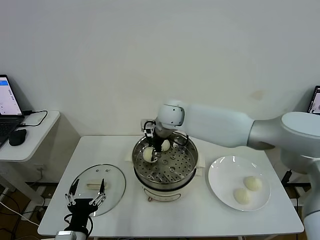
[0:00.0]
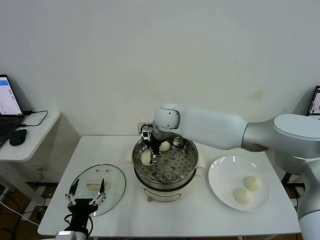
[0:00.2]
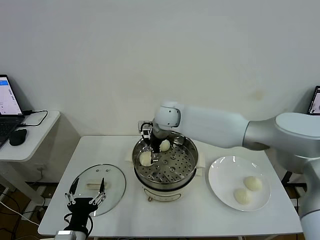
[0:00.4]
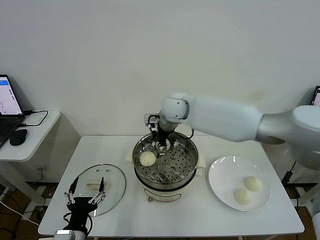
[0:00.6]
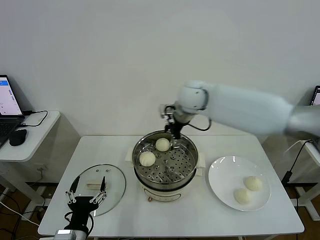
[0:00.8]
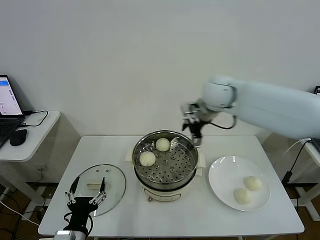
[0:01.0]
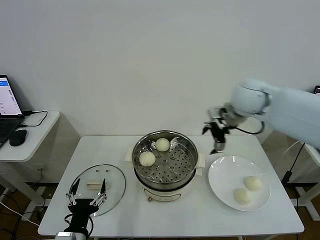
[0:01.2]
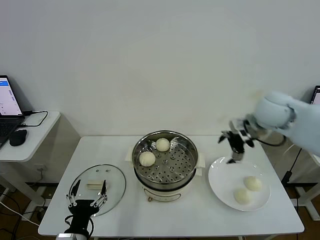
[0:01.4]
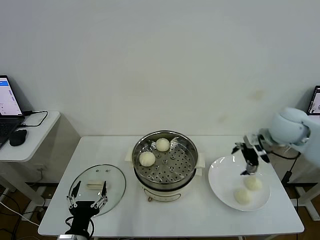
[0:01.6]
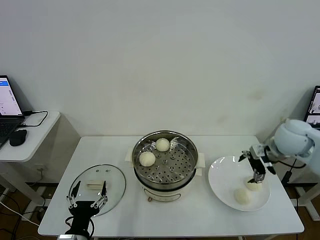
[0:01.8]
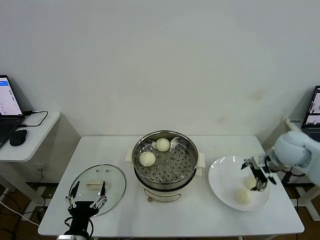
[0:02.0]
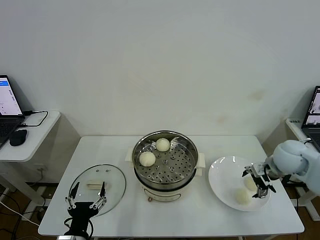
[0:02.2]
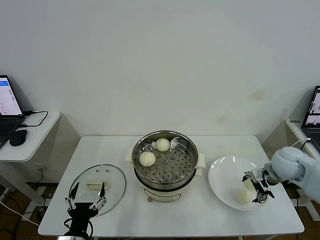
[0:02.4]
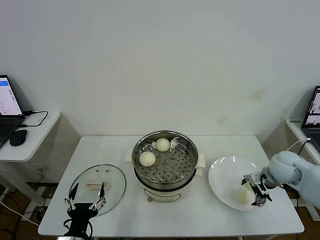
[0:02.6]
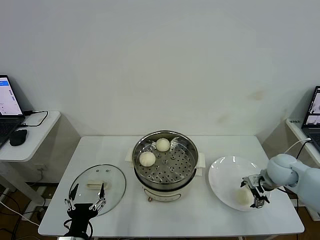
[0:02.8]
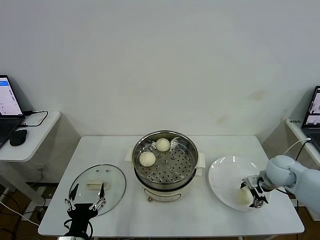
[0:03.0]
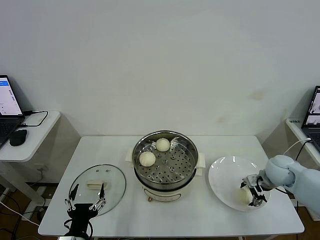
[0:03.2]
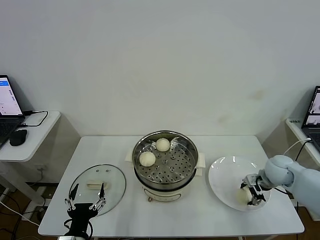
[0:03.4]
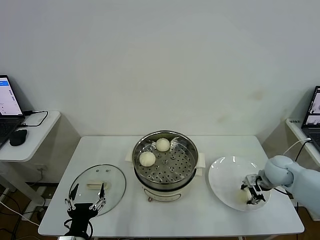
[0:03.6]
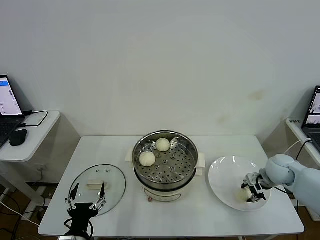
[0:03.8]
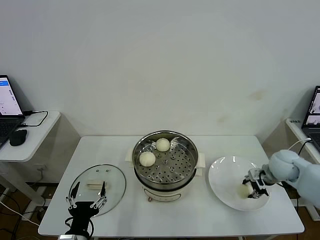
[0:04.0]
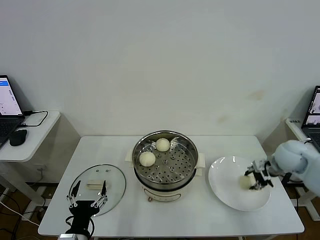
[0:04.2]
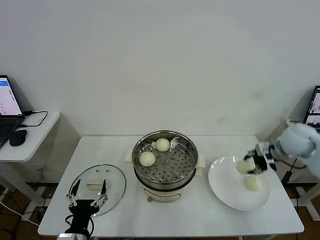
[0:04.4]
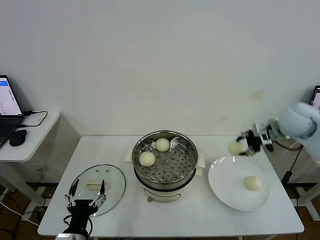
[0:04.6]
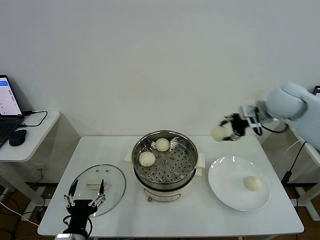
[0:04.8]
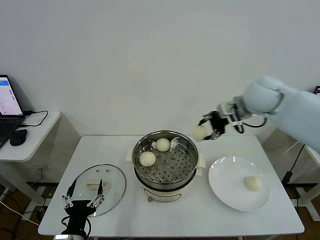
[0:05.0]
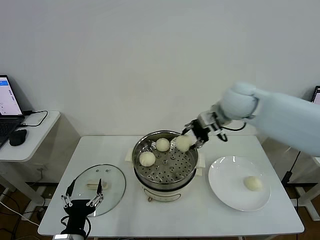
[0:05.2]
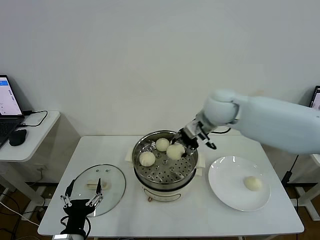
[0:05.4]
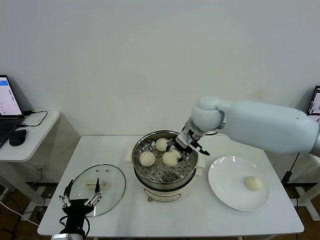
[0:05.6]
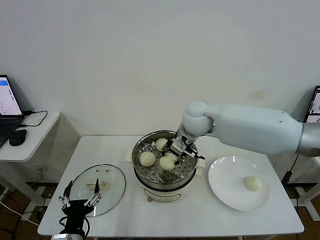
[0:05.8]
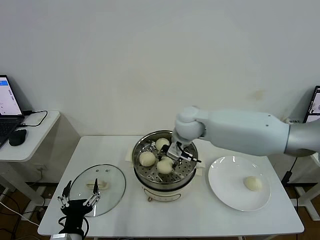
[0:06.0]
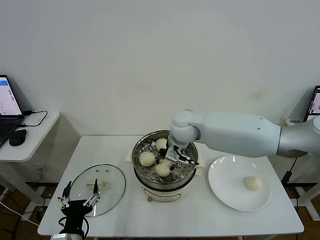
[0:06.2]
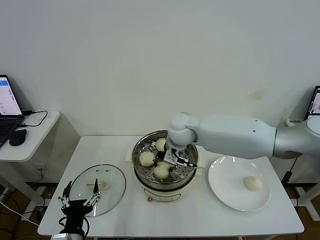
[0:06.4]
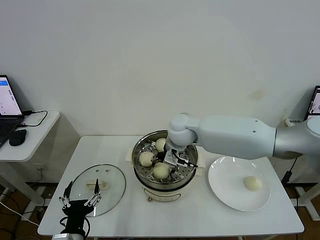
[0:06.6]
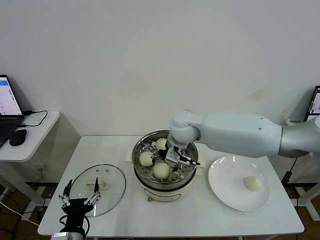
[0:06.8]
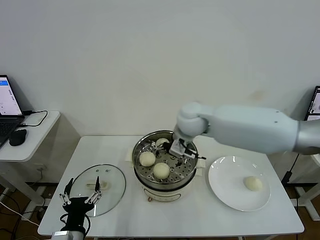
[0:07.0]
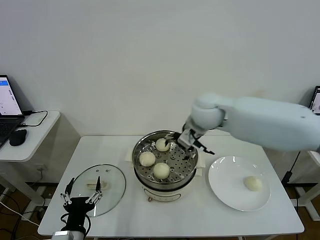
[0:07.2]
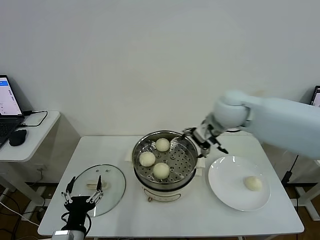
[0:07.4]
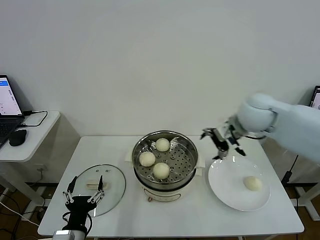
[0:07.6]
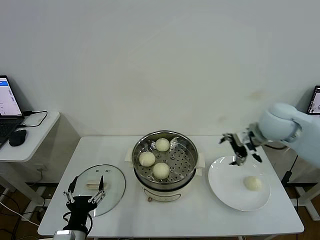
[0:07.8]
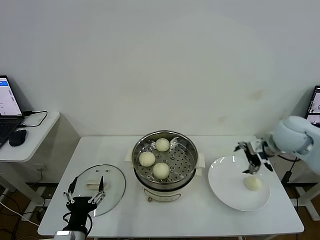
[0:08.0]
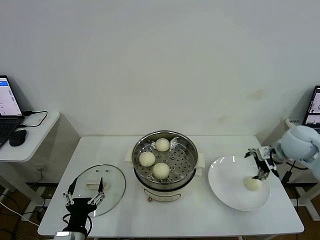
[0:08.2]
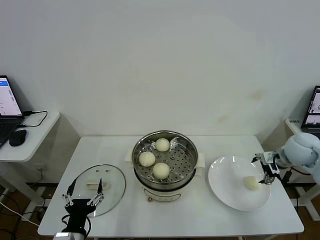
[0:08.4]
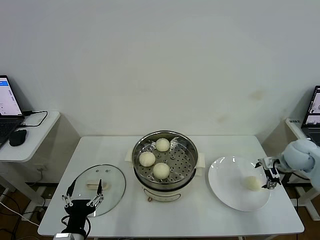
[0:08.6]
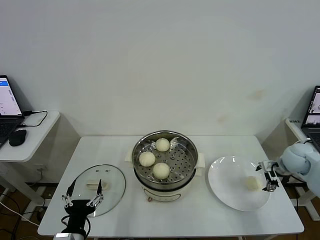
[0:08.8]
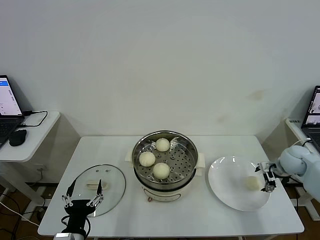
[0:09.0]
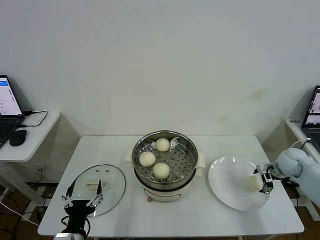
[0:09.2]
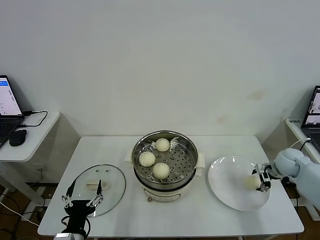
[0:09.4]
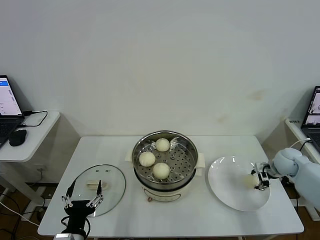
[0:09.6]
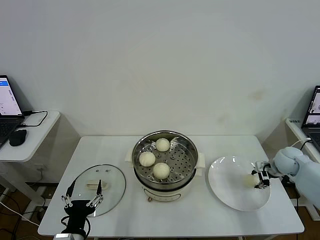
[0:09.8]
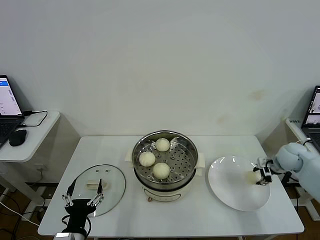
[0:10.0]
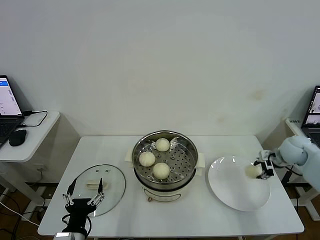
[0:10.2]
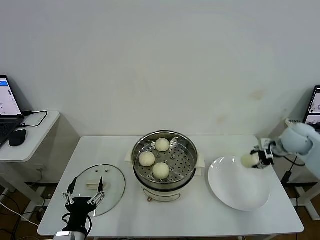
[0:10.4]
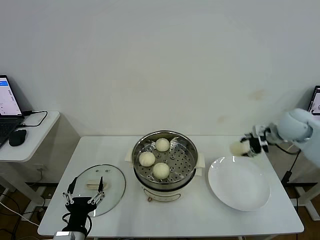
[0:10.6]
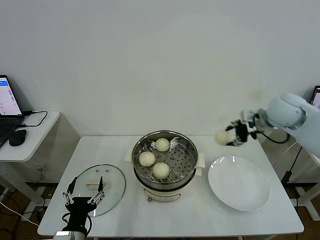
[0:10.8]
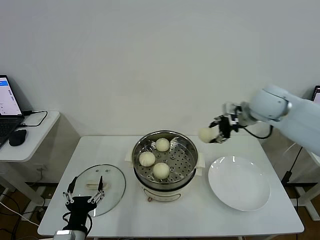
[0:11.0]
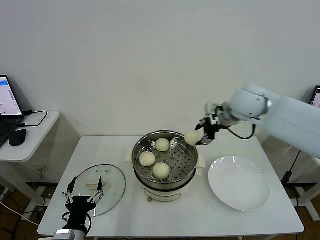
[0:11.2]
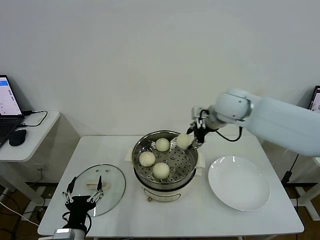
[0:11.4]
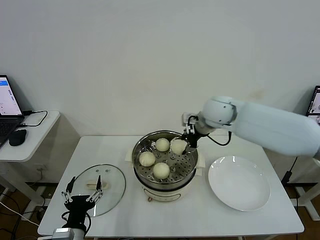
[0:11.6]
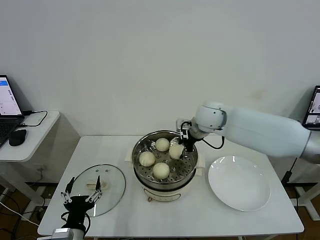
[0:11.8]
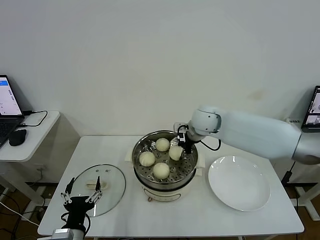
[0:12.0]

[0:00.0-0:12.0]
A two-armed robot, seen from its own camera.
Task of the whole recording: take steamed baozi put them in steamer then cover it.
Step, 0:00.6 to 0:03.6: Grasp the baozi in the plate with right gripper.
Step, 0:03.8 to 0:06.8: Place the baozi on the steamer with right gripper.
Step, 0:07.0 to 0:09.6: Grasp the baozi in the plate with right gripper.
0:00.0 to 0:01.6: The right gripper travels to the right by about 35 cm, and opens up.
0:01.6 to 0:03.0: The right gripper heads downward, covering some 15 cm.
0:03.0 to 0:04.4: The right gripper goes some 10 cm upward, and closes up.
0:04.4 to 0:06.0: The right gripper moves to the left, some 35 cm.
0:06.0 to 0:07.6: The right gripper moves to the right, about 15 cm, and opens its fingers.
0:07.6 to 0:09.0: The right gripper heads to the right and downward, covering roughly 30 cm.
0:09.0 to 0:10.4: The right gripper moves upward, about 10 cm, and closes its fingers.
0:10.4 to 0:12.0: The right gripper moves to the left, approximately 30 cm.

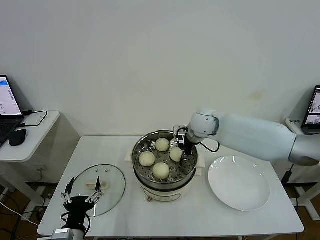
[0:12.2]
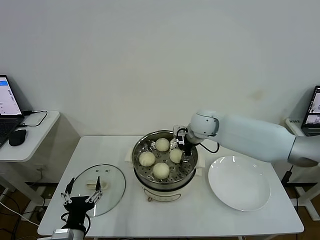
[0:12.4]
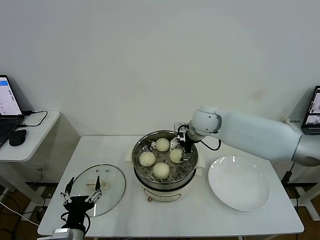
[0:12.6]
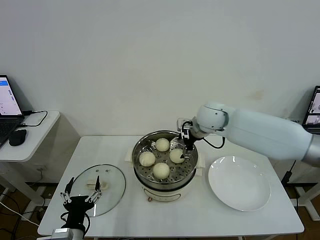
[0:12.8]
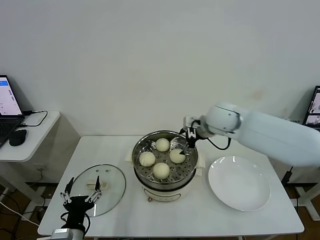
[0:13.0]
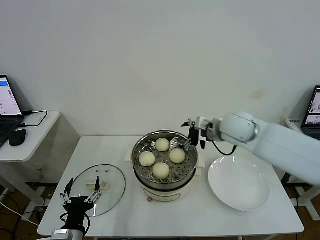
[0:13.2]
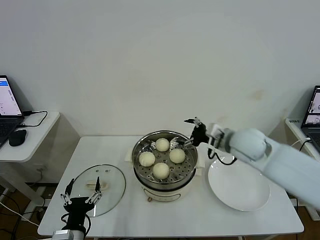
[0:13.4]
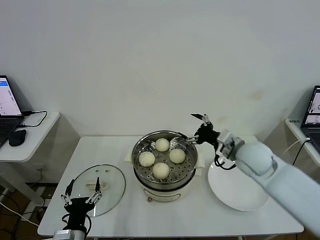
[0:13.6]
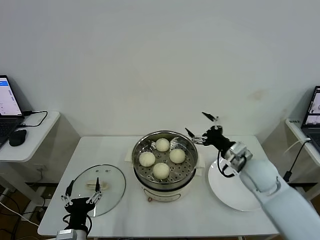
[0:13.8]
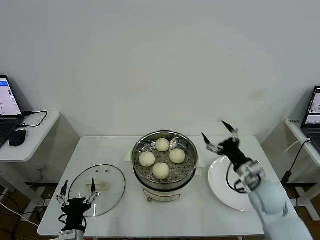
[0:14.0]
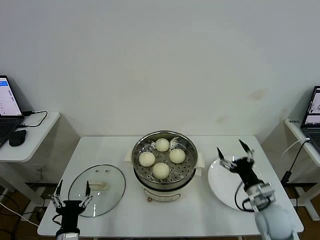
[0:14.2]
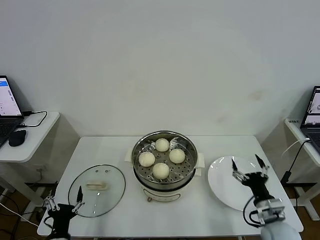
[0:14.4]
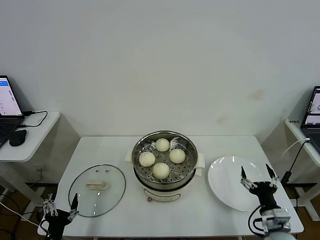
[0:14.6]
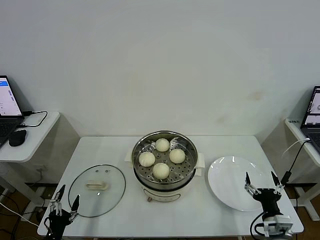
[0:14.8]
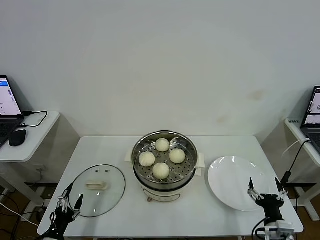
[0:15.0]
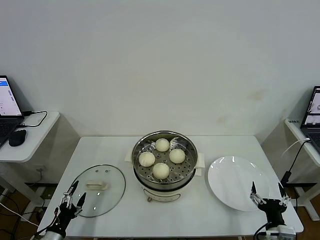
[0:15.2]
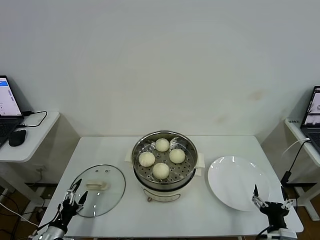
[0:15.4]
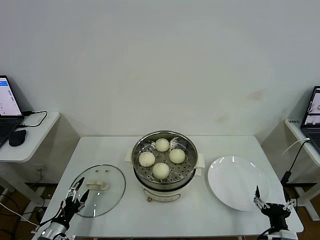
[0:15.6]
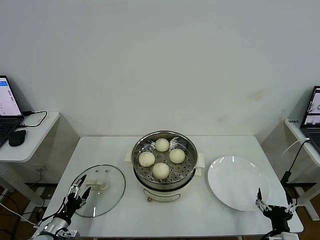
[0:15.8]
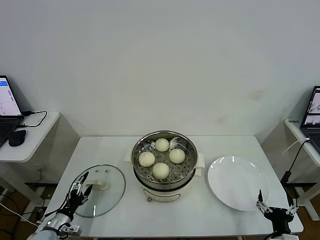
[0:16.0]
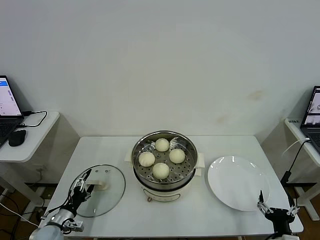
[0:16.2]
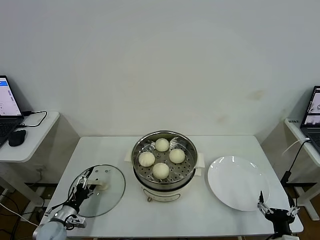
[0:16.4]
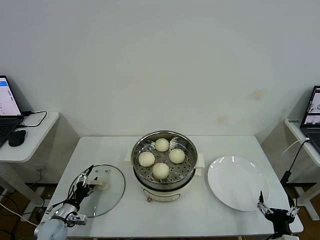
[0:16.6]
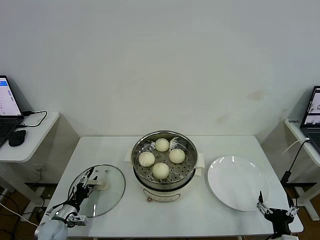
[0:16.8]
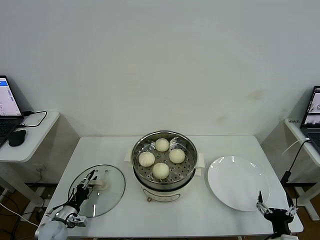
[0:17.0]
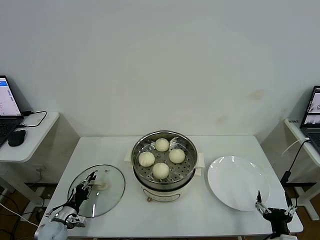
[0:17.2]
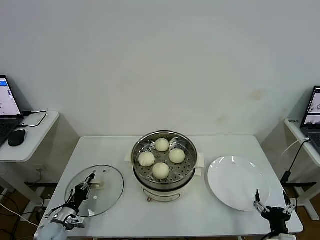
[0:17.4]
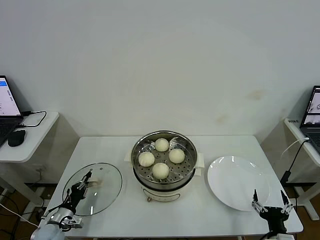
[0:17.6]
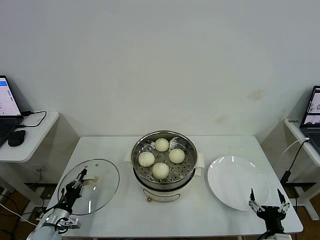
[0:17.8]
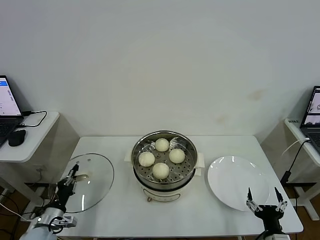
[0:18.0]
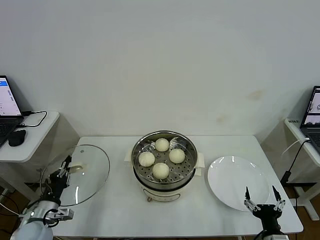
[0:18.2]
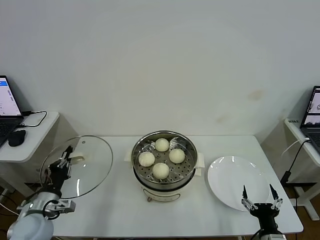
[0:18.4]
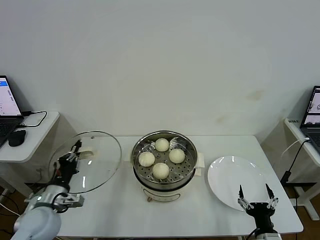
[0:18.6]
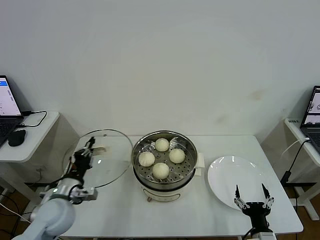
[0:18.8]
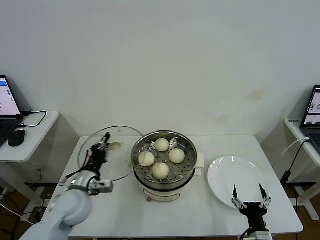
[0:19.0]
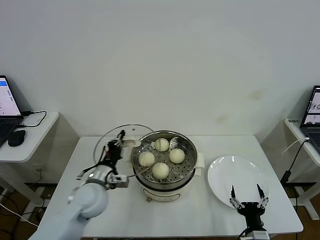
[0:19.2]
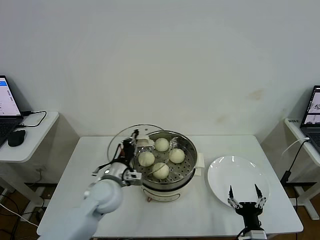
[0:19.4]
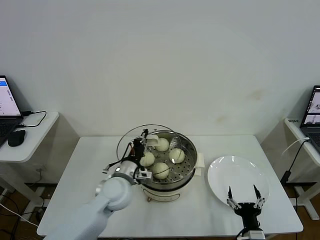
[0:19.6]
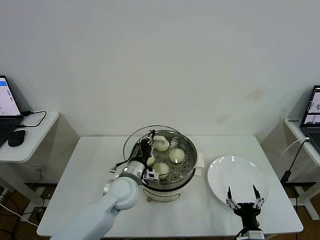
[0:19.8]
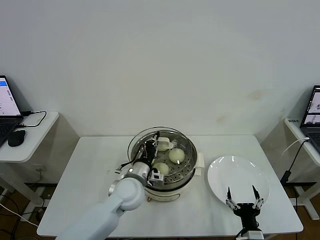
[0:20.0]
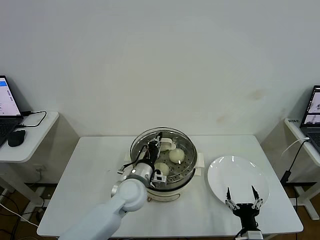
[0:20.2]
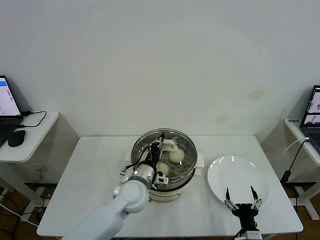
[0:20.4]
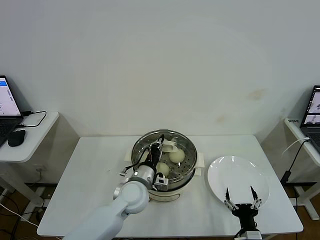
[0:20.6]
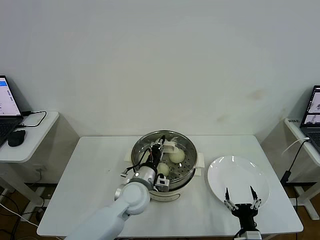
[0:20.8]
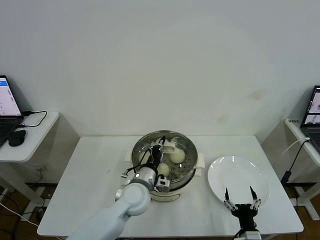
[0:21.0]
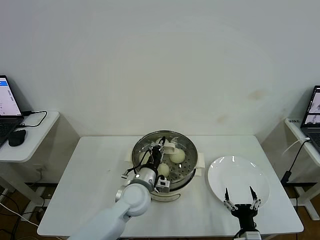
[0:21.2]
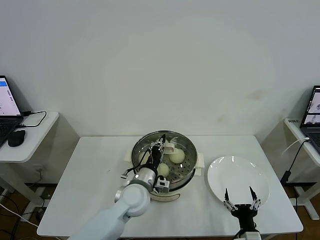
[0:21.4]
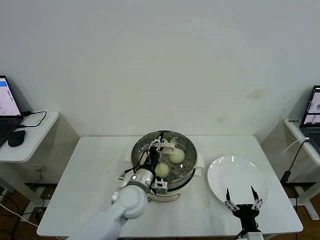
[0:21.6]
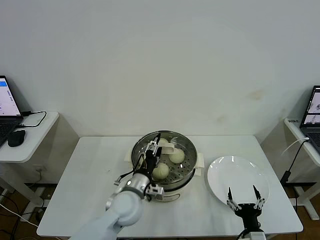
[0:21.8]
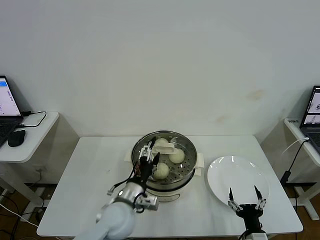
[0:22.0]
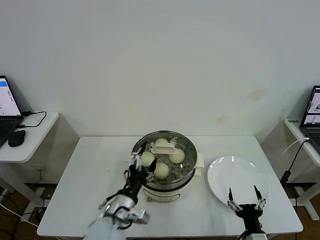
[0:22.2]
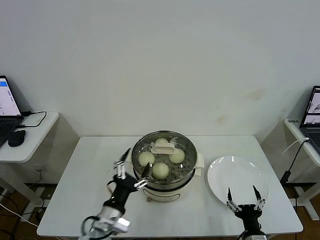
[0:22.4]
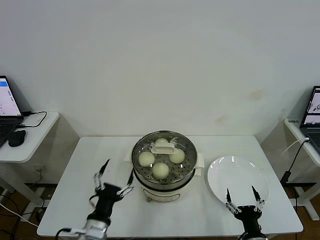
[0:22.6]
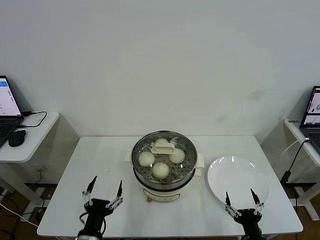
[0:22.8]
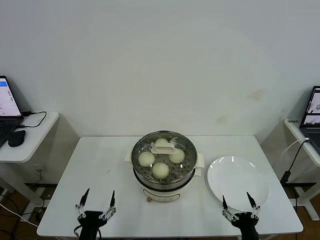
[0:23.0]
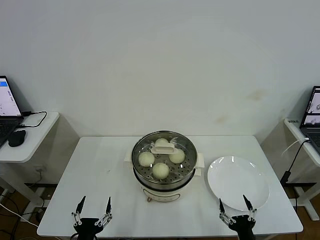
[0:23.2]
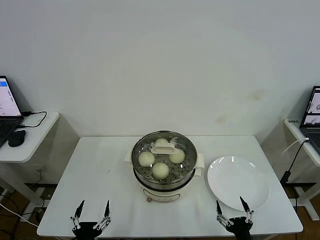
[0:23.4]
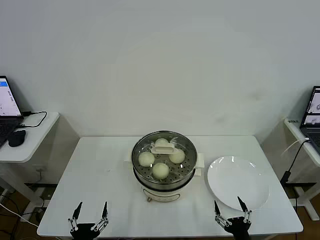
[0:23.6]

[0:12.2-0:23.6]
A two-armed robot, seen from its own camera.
Task of the whole recording: take steamed baozi put them in steamer then cover it.
Step, 0:13.0 to 0:17.4: Grasp the pot lid with left gripper.
Step, 0:17.8 to 0:22.0: Place the pot lid on the steamer with left gripper.
0:12.2 to 0:13.6: The right gripper is displaced backward and to the right by roughly 20 cm, and opens up.
0:13.6 to 0:15.0: The right gripper moves backward and downward, some 30 cm, while the left gripper goes about 15 cm to the left and downward.
0:15.0 to 0:16.4: The left gripper goes about 10 cm forward.
0:16.4 to 0:17.8: The left gripper closes.
0:17.8 to 0:19.4: The left gripper heads to the right and upward, covering about 30 cm, while the right gripper heads to the left, covering roughly 5 cm.
0:19.4 to 0:20.8: The left gripper heads to the right, covering some 10 cm.
0:20.8 to 0:22.2: The left gripper moves backward and to the left, some 10 cm, and opens up.
0:22.2 to 0:23.6: The left gripper travels backward, to the left and downward by approximately 20 cm.
